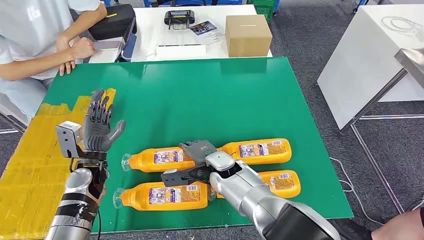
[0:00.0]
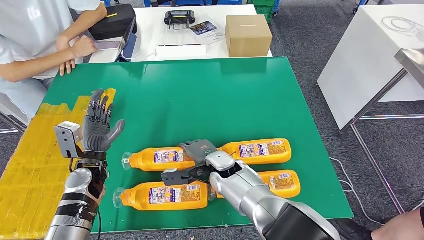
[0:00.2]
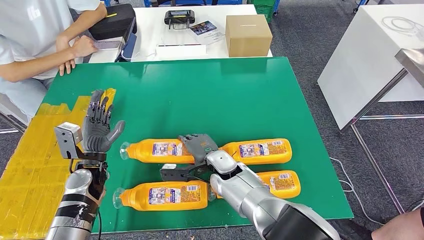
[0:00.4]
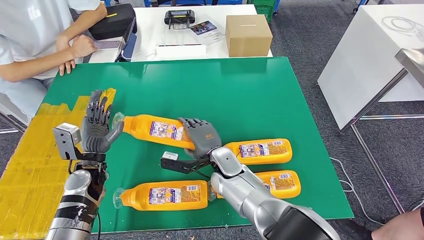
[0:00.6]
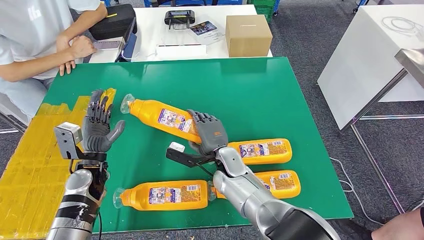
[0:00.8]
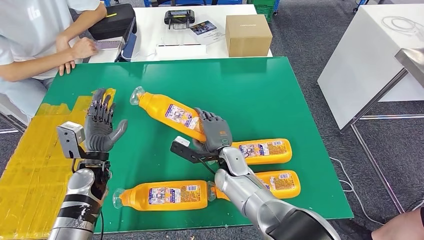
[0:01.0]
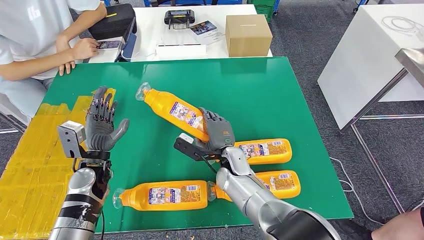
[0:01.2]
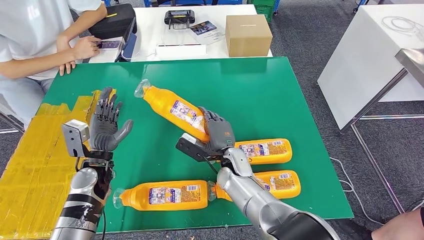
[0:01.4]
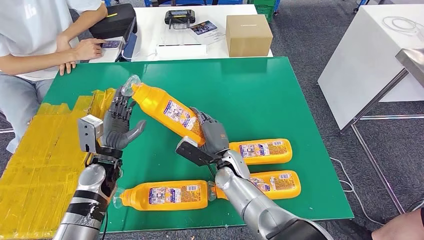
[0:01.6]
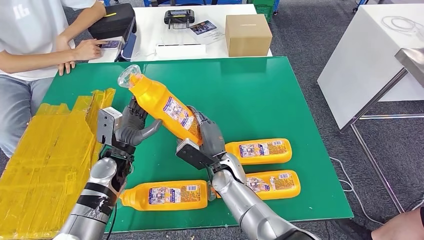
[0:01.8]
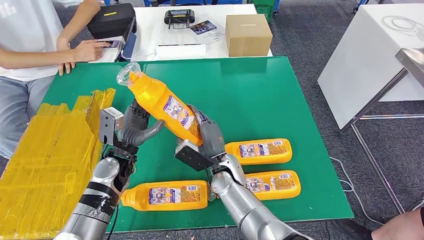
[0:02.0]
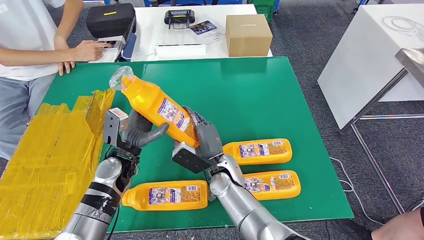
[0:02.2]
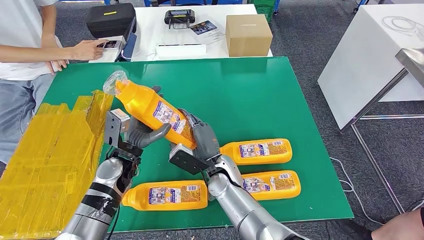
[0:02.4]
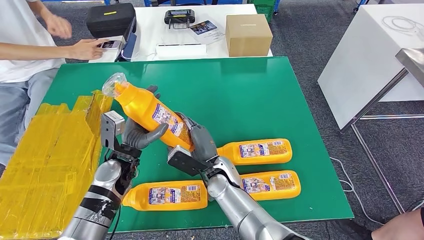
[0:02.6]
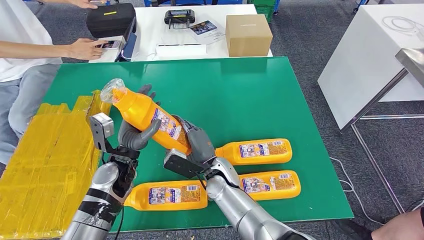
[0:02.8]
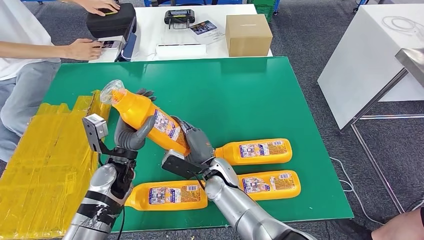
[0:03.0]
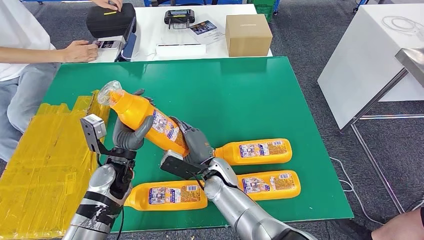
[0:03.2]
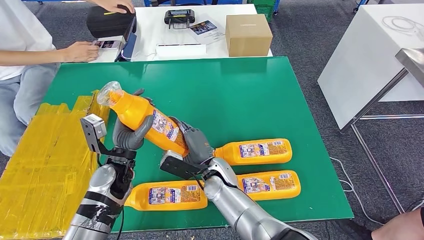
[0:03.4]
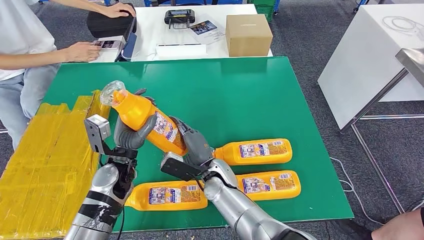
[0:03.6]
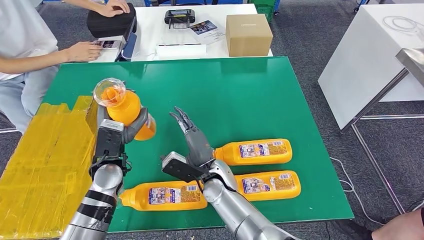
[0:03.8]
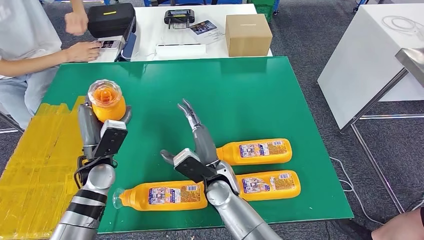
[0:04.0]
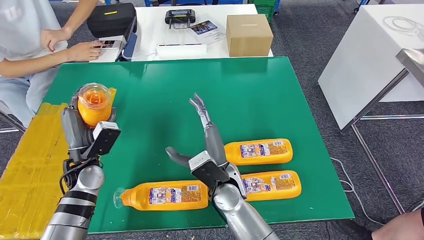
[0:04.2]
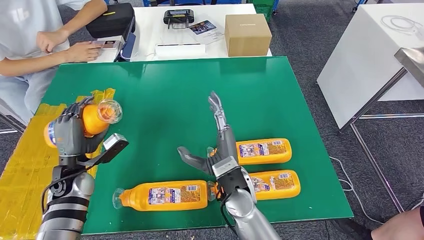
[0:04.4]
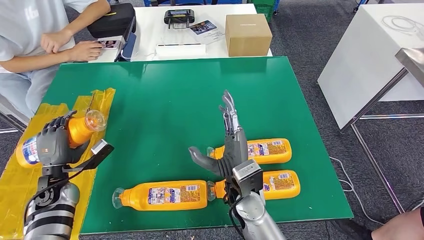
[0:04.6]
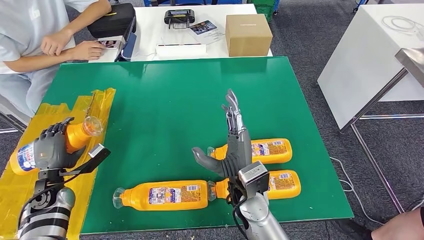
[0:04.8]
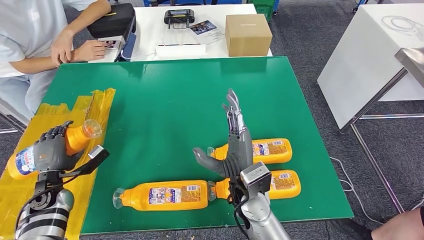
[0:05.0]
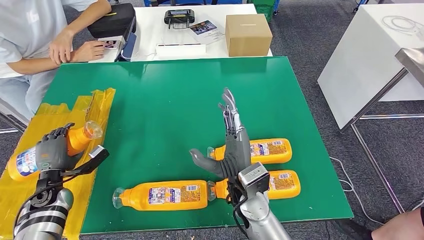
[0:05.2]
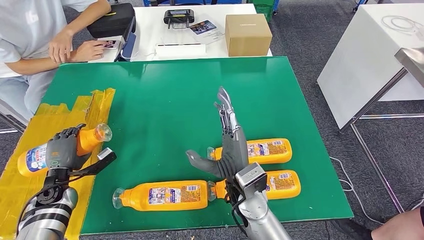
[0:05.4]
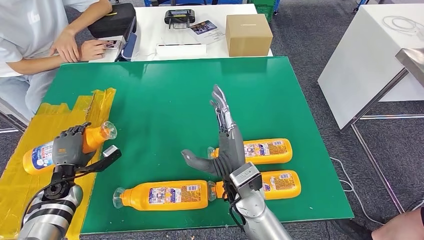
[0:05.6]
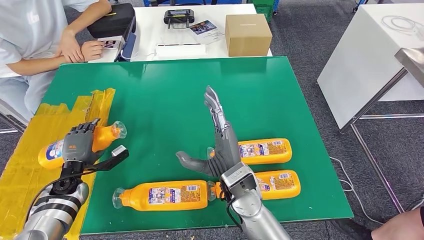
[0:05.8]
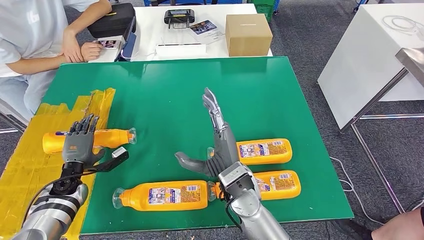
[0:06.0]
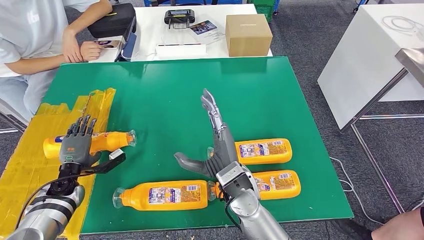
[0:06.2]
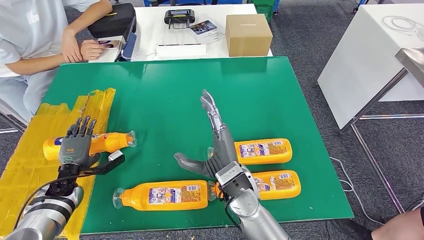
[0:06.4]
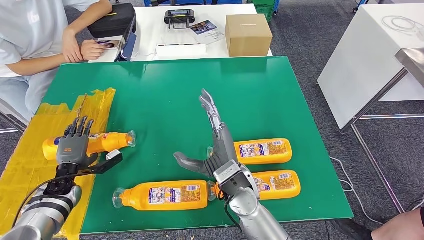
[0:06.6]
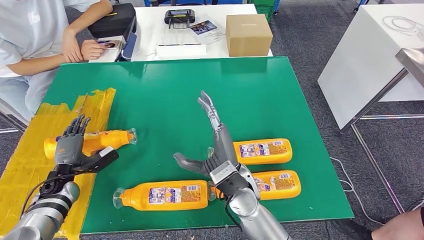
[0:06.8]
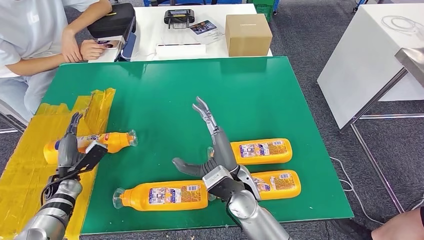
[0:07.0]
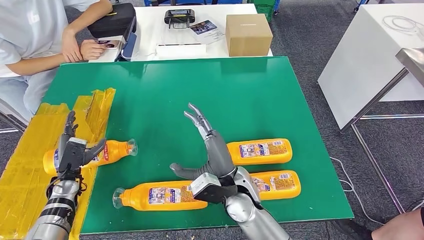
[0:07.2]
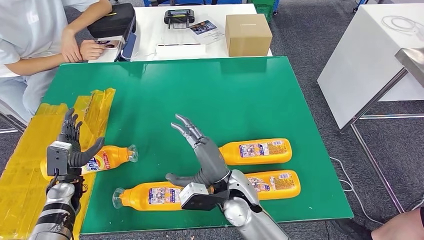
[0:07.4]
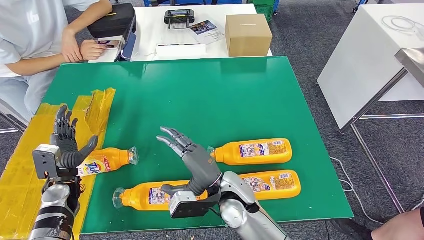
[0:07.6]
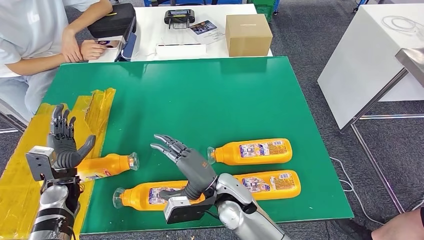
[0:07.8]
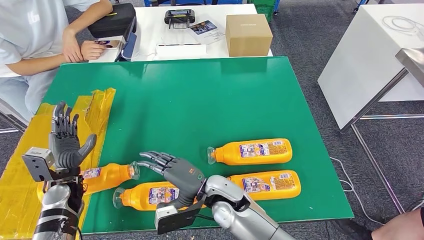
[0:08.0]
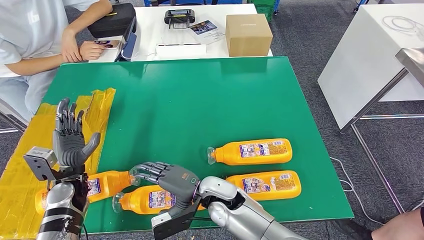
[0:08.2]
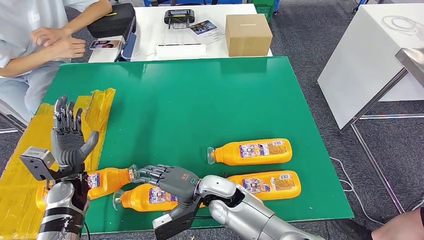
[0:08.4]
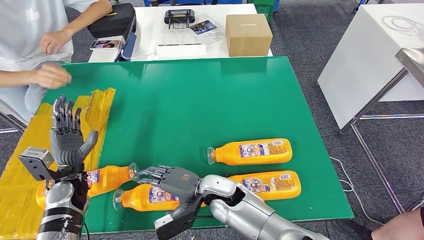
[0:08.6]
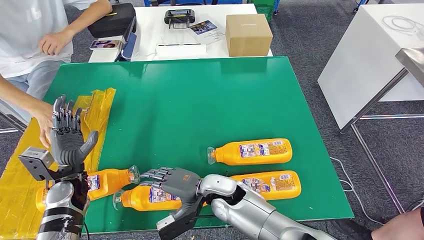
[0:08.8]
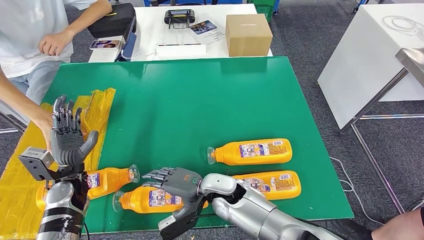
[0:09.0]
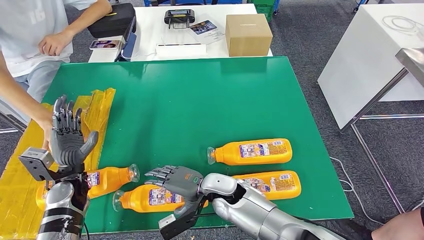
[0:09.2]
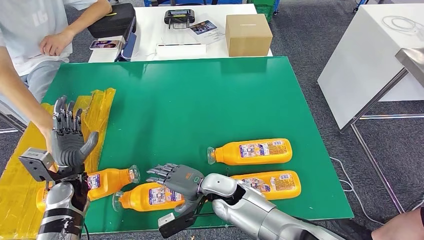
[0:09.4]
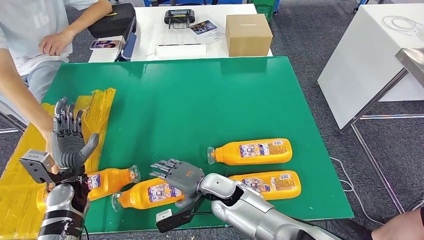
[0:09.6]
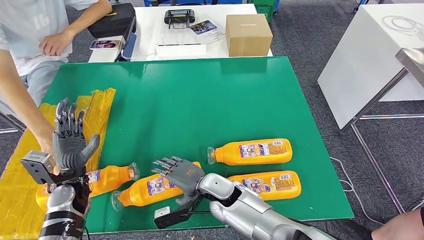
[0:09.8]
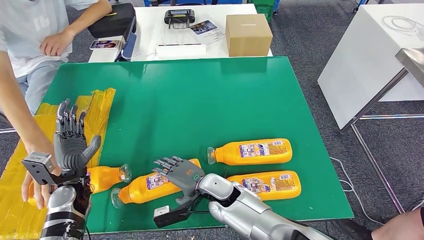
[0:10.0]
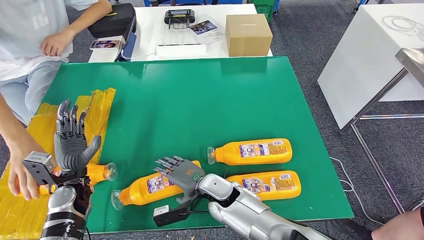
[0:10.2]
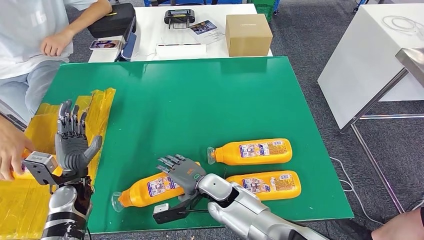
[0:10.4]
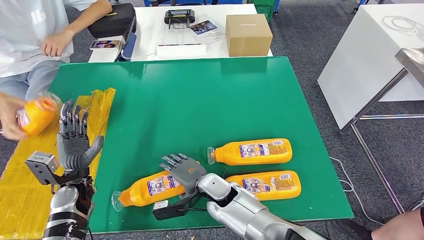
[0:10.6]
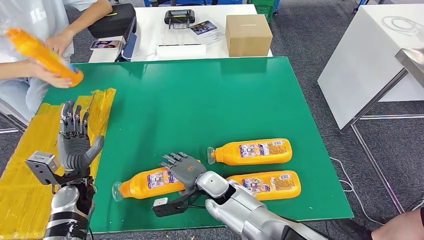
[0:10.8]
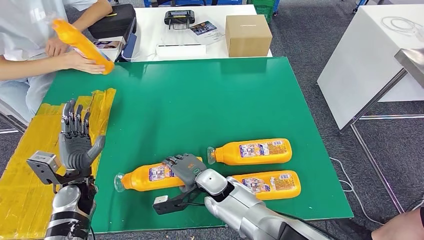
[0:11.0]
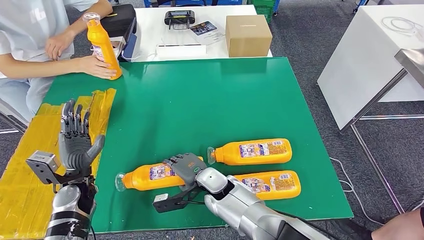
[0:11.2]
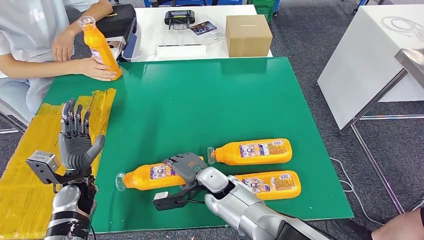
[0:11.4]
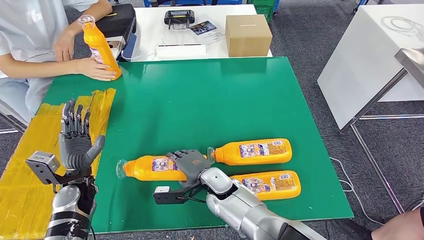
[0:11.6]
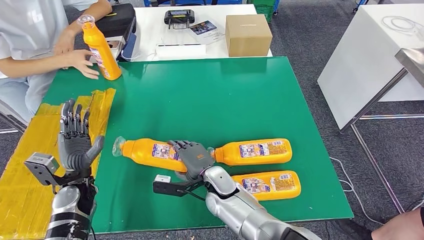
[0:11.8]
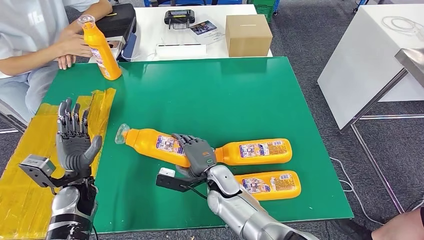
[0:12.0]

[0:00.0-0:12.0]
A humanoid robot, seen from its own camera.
Step, 0:00.0 to 0:02.0: Take the bottle from the table.
Step, 0:03.8 to 0:07.2: Flip the bottle to face forward.
0:04.4 to 0:06.0: The left hand is displaced downward by approximately 5 cm.
0:07.6 to 0:09.0: The right hand shifts by approximately 5 cm.

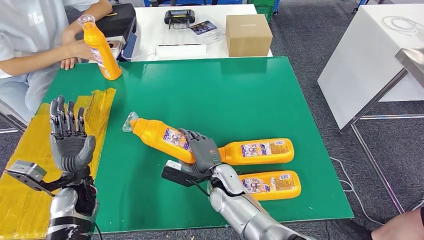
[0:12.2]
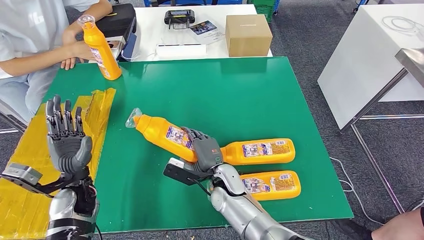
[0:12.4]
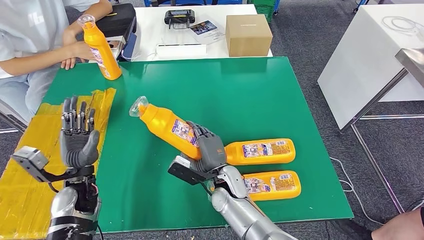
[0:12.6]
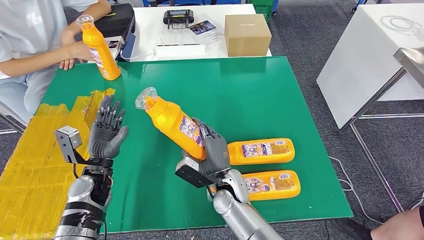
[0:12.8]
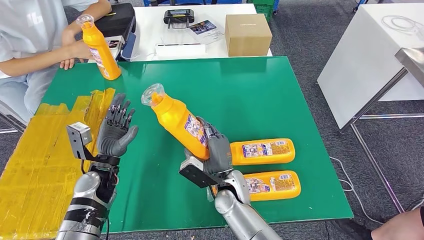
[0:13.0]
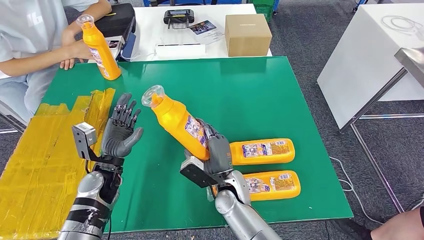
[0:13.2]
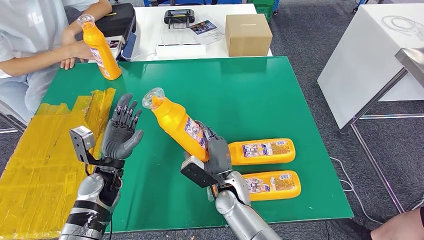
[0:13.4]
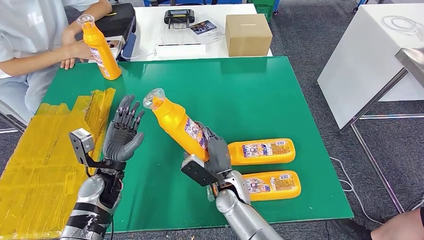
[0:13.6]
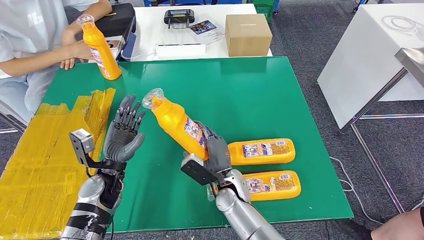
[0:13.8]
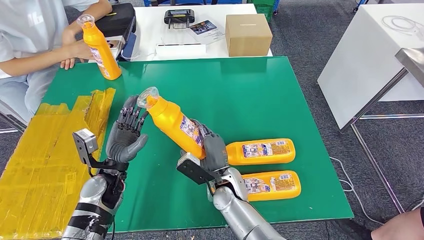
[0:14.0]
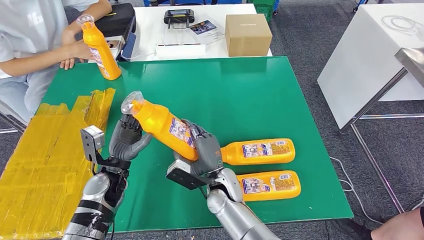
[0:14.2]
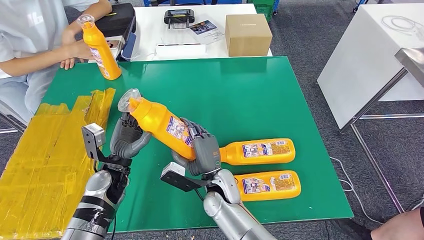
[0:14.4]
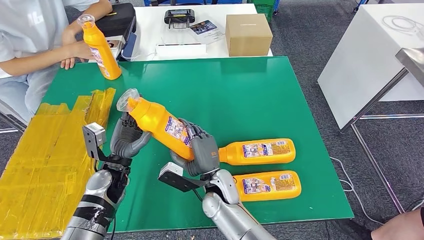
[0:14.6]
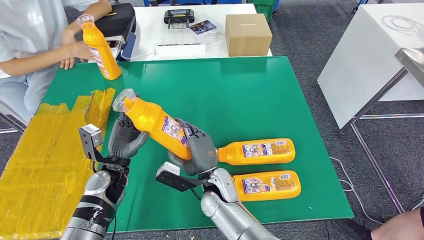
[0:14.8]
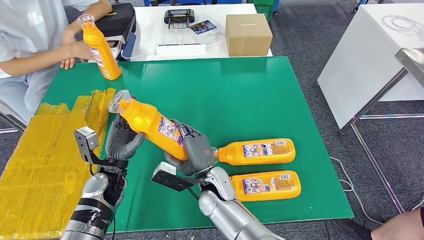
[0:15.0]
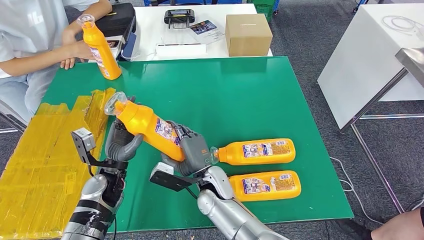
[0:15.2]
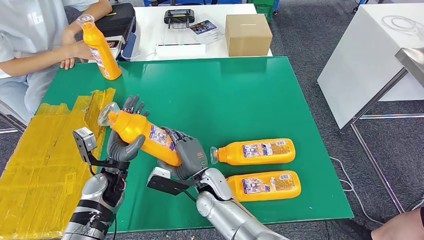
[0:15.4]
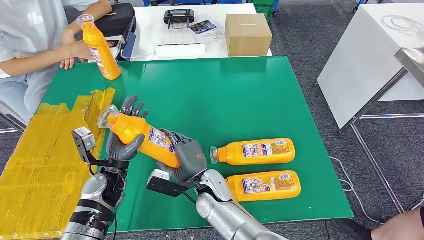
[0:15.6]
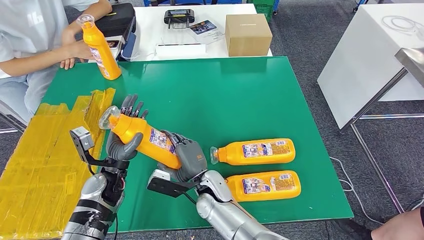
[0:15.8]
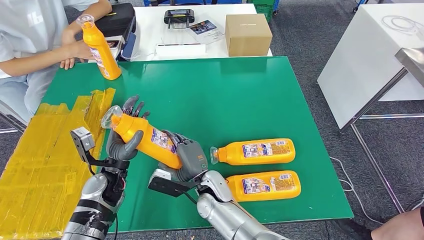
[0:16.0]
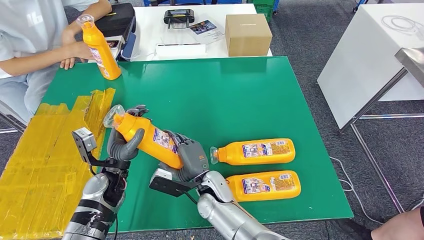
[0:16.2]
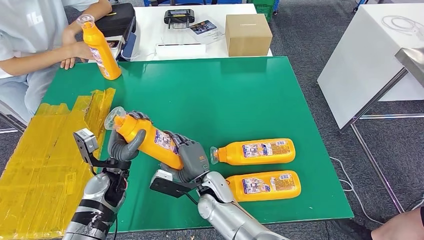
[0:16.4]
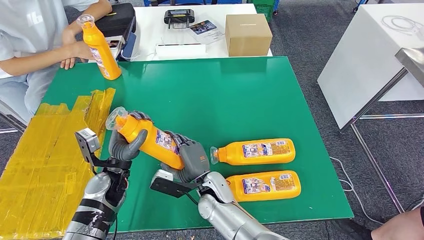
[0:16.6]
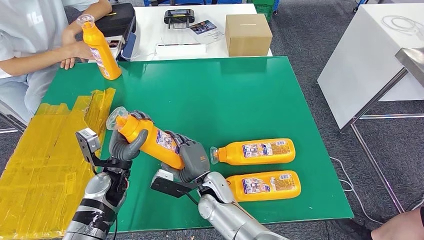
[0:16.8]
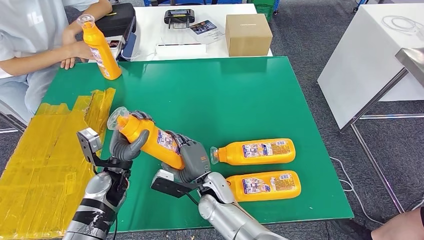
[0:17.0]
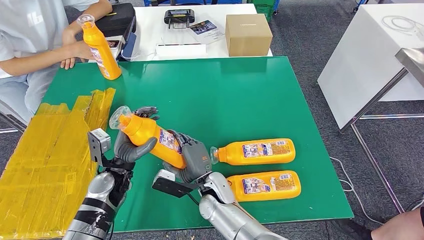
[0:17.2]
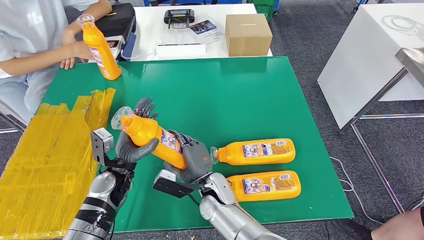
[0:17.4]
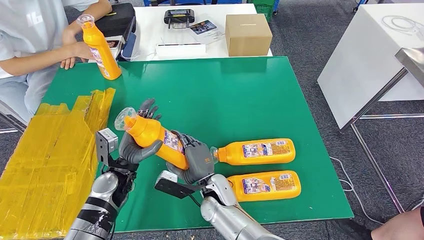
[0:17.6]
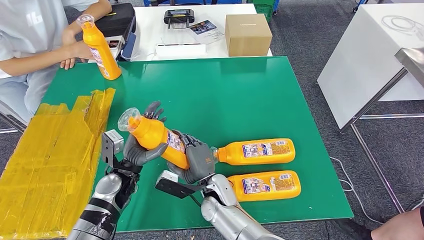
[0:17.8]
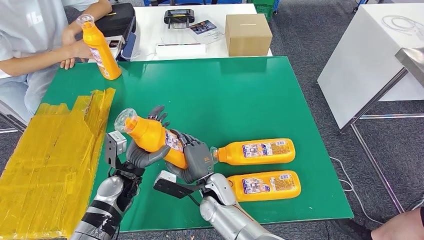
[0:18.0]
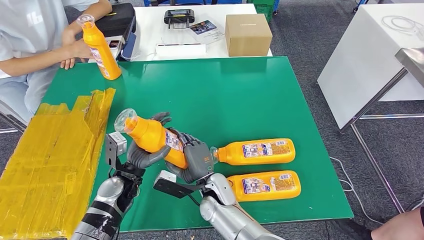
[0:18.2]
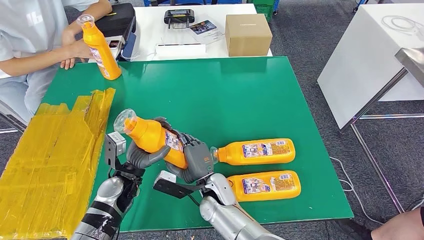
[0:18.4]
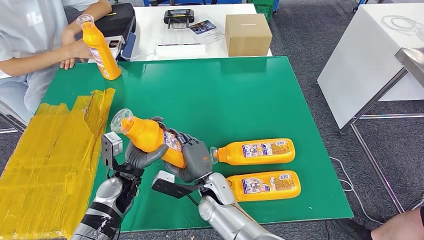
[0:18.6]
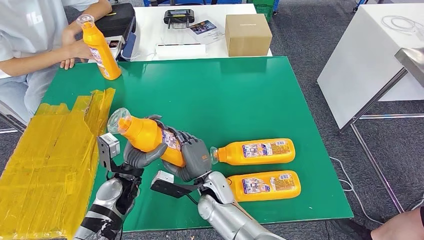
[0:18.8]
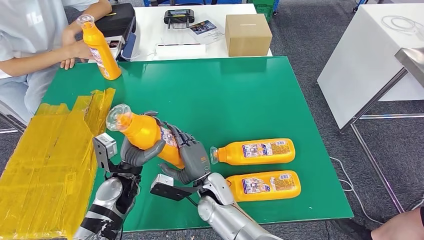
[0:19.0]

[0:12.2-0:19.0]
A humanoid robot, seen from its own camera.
0:12.2 to 0:13.6: The left hand shifts about 5 cm to the right.
0:13.6 to 0:15.0: The right hand travels to the left by about 5 cm.
0:15.0 to 0:19.0: There are only small adjustments of the hands.
